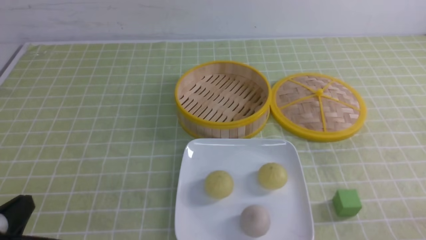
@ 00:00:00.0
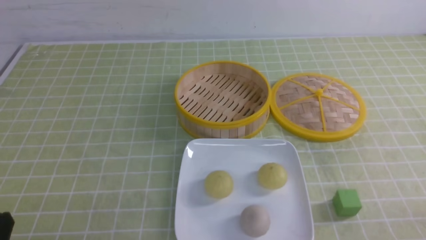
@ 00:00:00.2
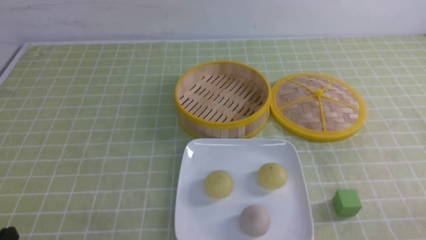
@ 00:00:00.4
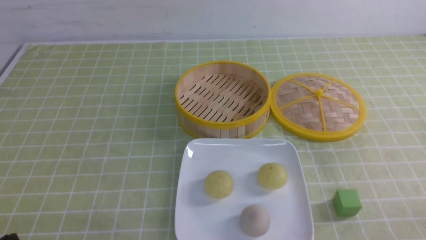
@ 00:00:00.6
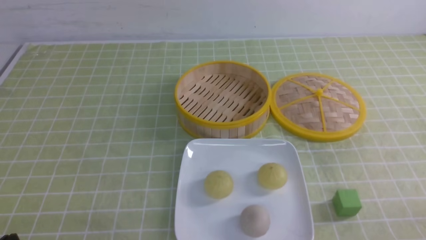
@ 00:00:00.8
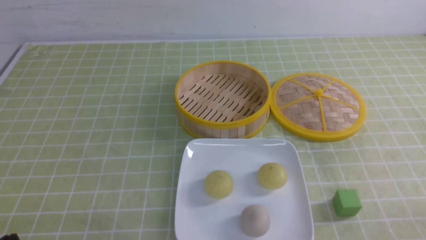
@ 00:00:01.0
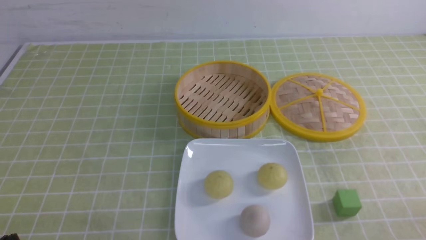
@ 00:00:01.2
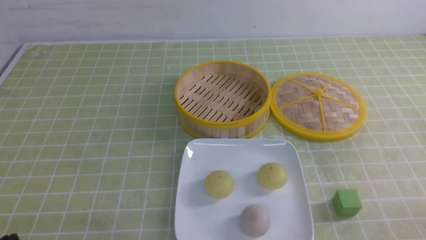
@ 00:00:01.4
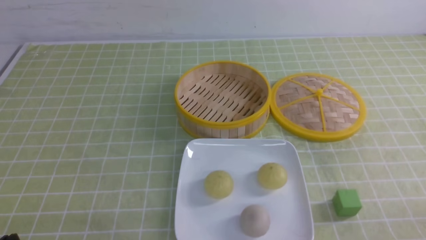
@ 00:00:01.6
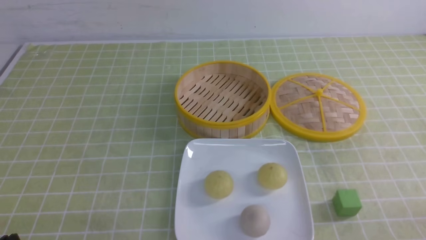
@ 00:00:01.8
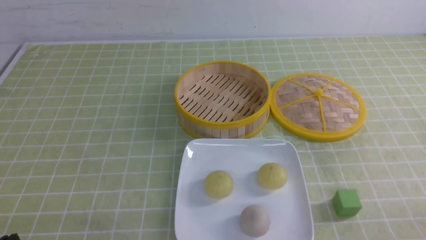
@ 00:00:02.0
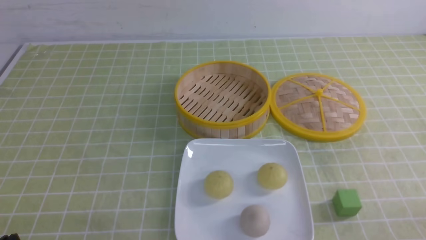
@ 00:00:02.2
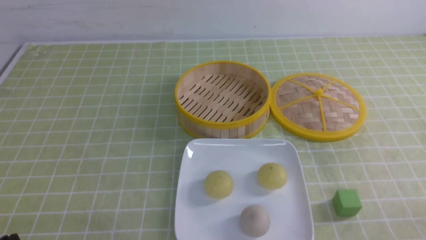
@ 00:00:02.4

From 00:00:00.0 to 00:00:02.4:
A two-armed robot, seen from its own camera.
From 00:00:00.0 to 00:00:01.2: The left gripper travels downward by about 5 cm.
From 00:00:01.2 to 00:00:02.4: Neither gripper changes place.

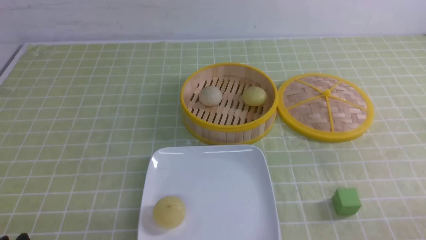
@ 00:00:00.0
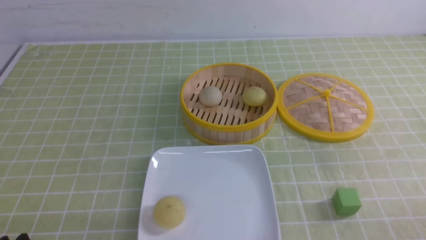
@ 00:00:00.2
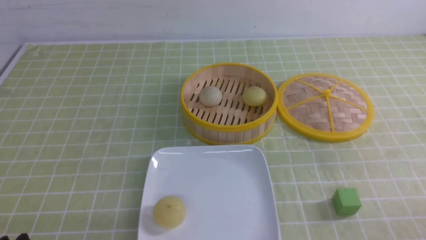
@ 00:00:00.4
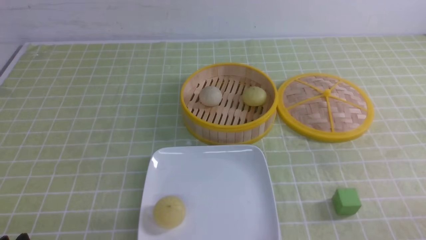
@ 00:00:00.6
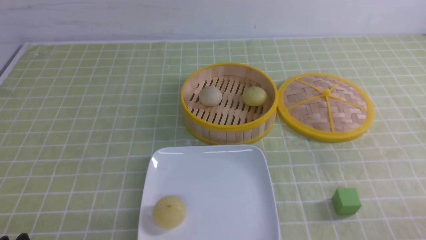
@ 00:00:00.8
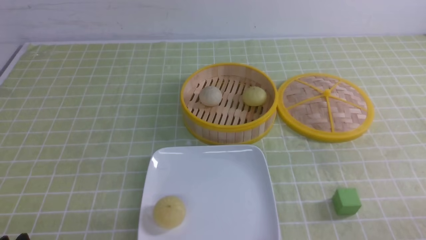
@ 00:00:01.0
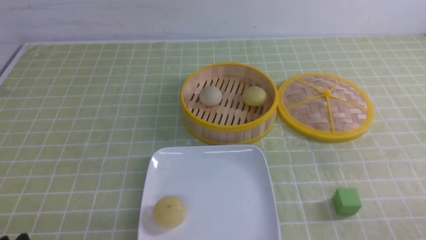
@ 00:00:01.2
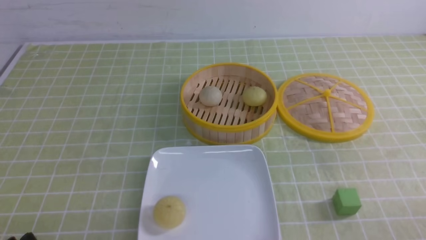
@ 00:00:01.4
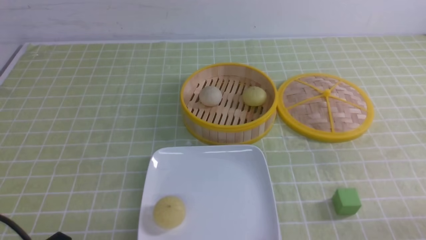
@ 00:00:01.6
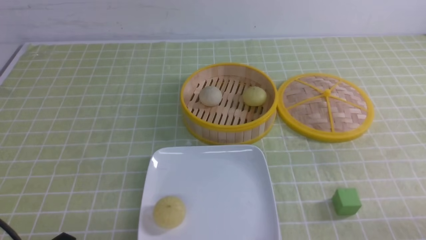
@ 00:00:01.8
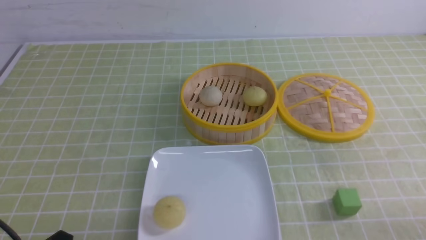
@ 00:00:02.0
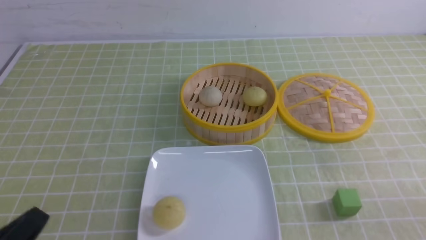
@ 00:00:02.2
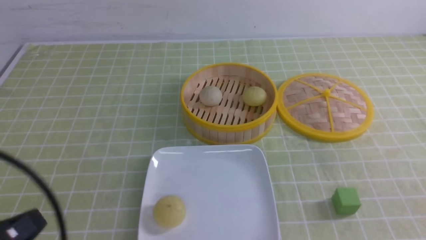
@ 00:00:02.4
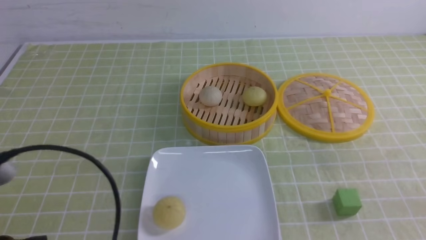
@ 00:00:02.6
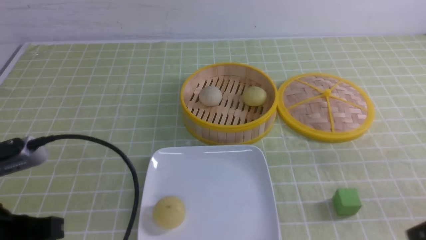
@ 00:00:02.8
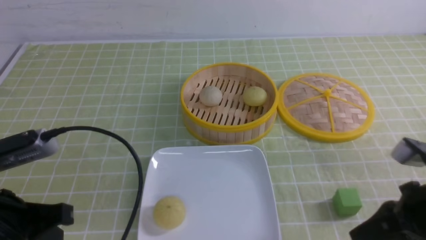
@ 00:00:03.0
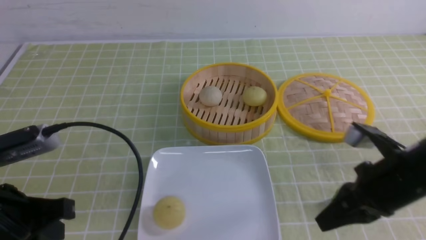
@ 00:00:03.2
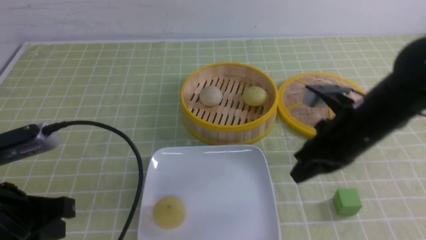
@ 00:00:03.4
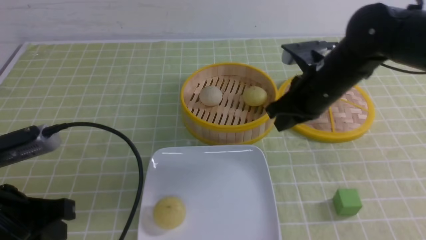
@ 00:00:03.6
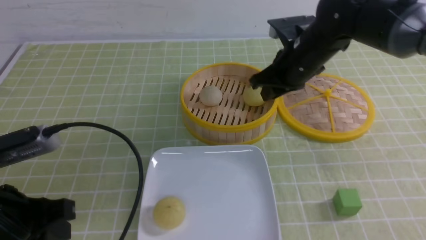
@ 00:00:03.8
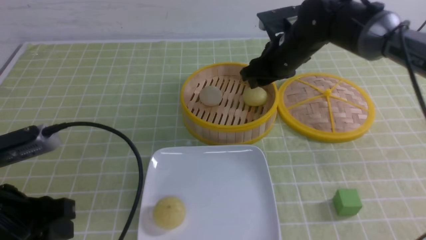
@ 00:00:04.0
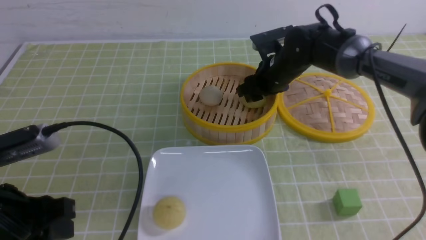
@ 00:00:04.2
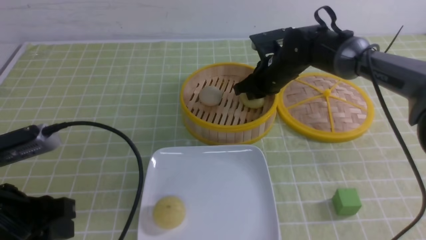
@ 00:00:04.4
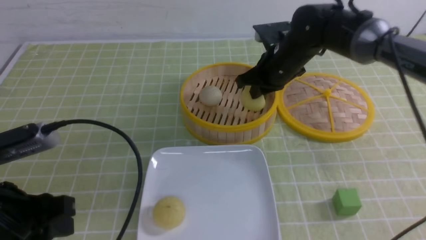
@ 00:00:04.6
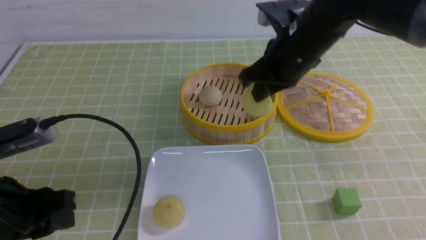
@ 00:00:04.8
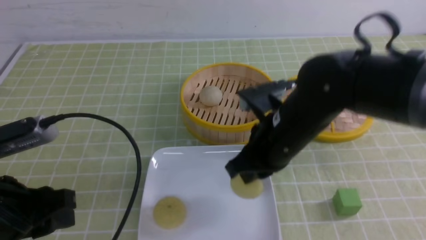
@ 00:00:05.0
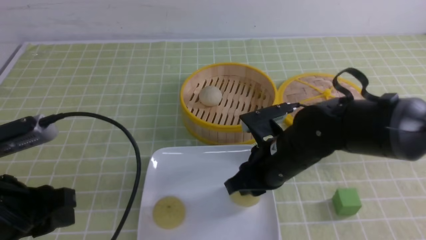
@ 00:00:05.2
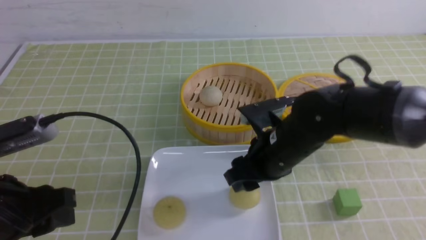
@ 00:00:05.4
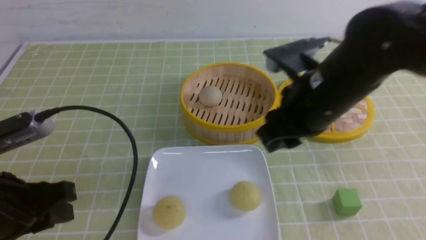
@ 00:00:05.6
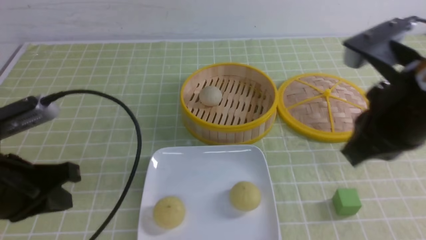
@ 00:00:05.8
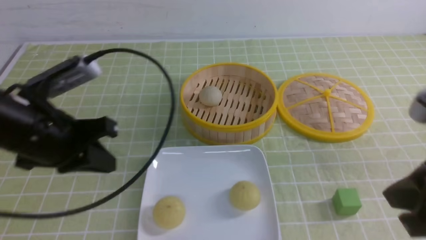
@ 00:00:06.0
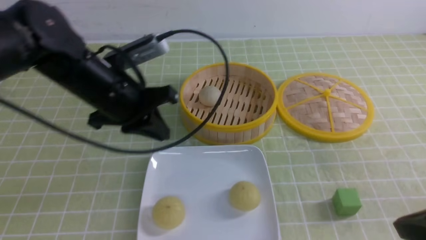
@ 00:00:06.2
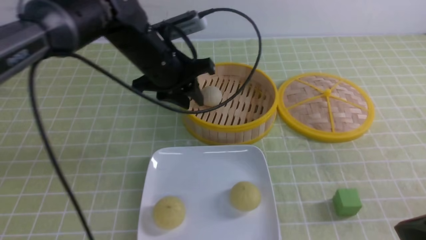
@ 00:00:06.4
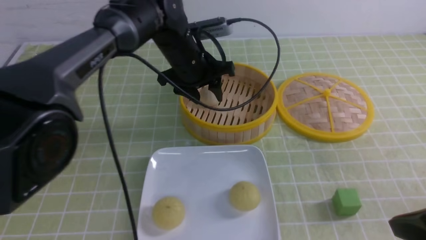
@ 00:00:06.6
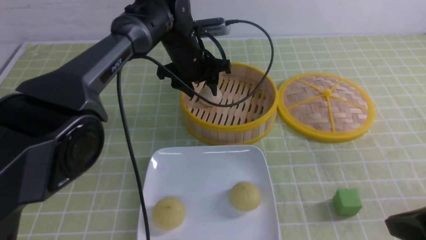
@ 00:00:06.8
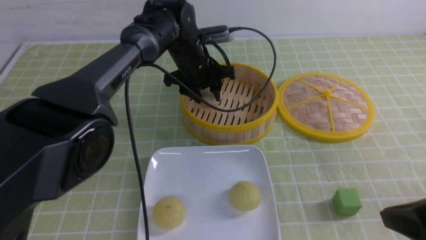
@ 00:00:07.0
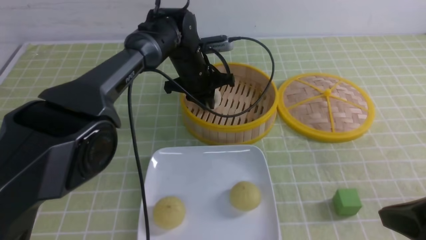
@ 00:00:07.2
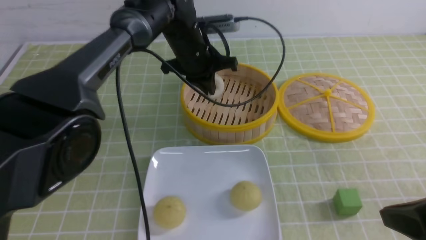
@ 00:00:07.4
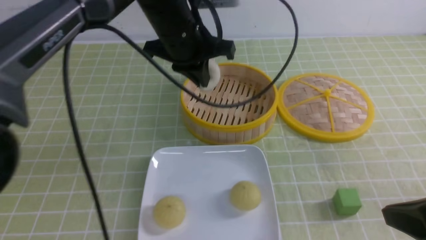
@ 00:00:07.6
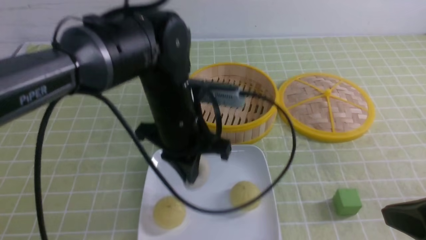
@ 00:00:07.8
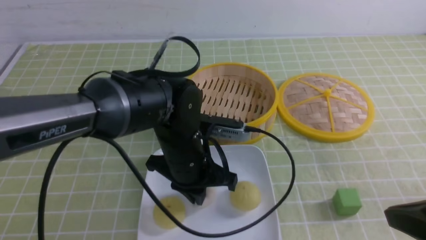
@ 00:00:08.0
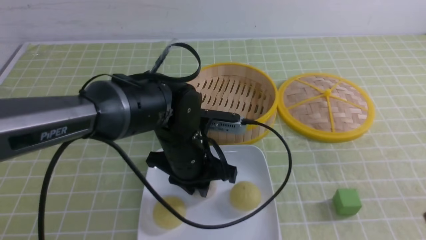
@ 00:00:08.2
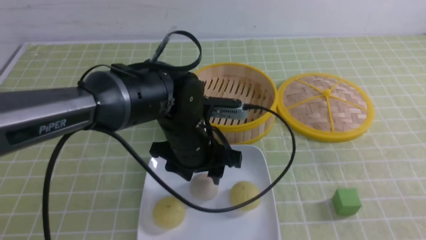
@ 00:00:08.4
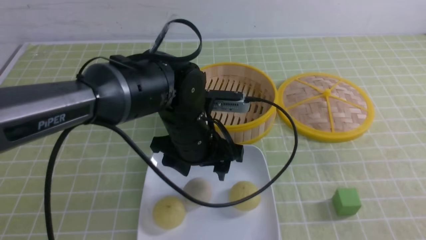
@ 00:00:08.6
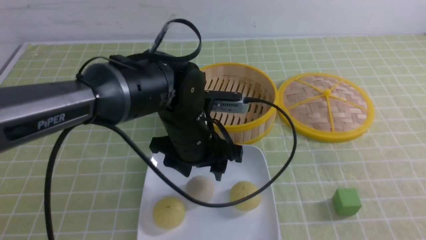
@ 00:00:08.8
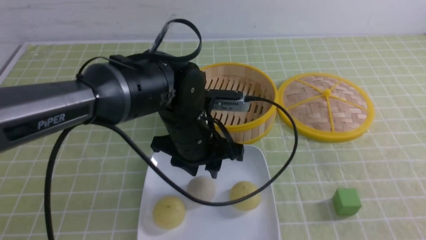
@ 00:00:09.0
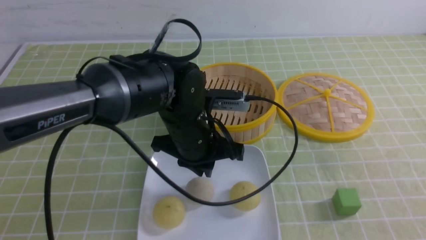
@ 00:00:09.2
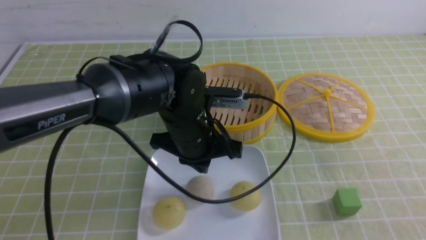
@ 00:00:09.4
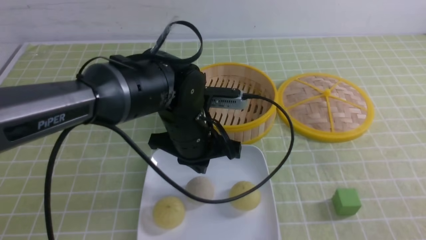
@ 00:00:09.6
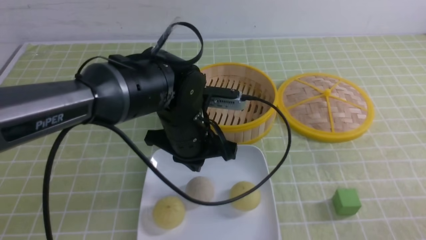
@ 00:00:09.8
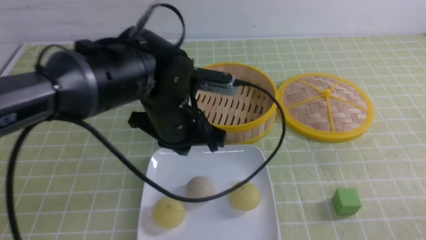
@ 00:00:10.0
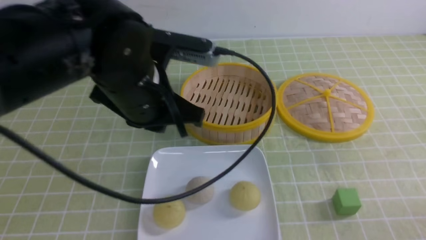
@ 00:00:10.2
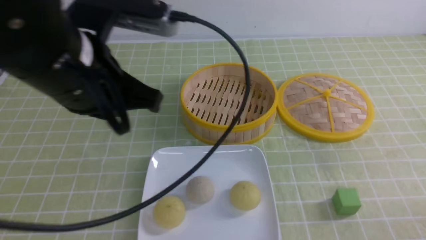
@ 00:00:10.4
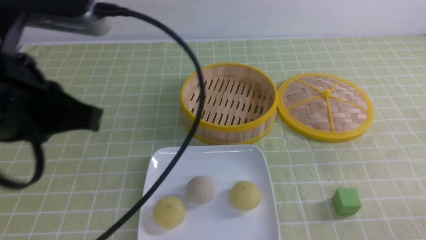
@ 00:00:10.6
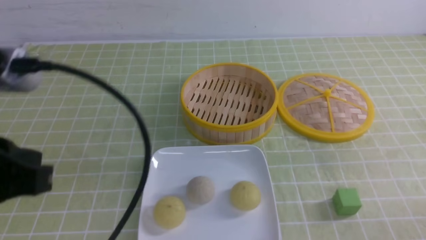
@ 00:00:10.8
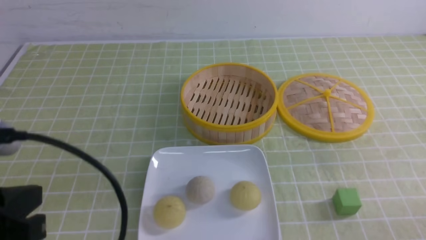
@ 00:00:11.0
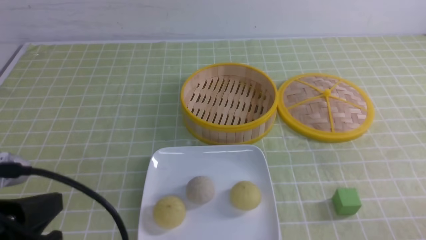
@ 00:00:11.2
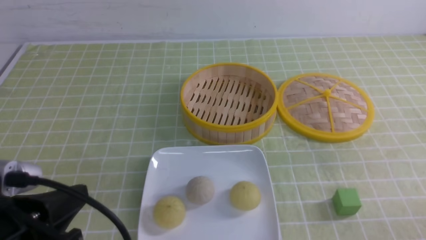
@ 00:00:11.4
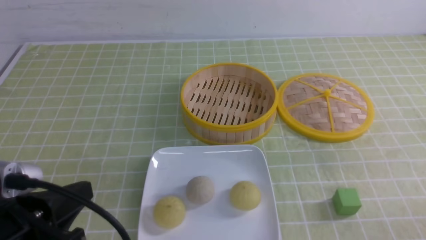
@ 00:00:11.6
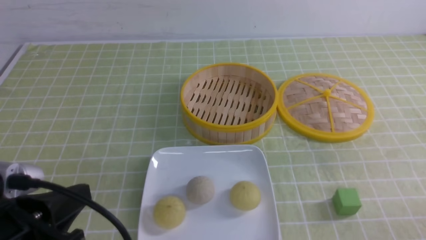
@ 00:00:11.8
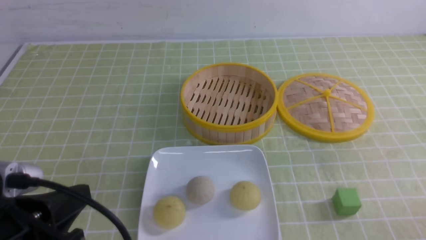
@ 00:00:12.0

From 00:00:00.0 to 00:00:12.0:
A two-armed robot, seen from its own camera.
Step, from 00:00:00.0 to 00:00:04.4: use the right arm to grab the steamed stuffed bun that is closest to it.
Step, from 00:00:04.6 to 00:00:05.2: use the right arm to put the steamed stuffed bun into the plate.
Step, from 00:00:05.4 to 00:00:07.0: use the left arm to grab the steamed stuffed bun that is closest to it.
Step, from 00:00:07.4 to 00:00:08.2: use the left arm to put the steamed stuffed bun into the plate.
From 00:00:01.6 to 00:00:03.0: The right gripper moves forward, to the left and upward, approximately 15 cm, and closes. Meanwhile the left gripper goes about 15 cm upward and forward, and closes its fingers.
From 00:00:03.0 to 00:00:04.4: The right gripper travels forward and to the left by some 30 cm, and opens its fingers; the left gripper opens.
From 00:00:04.4 to 00:00:06.0: The right gripper heads backward, covering roughly 30 cm, and closes; the left gripper goes approximately 10 cm forward, and closes up.
From 00:00:06.0 to 00:00:07.6: The right gripper ends up some 5 cm from where it was. The left gripper moves to the right and forward, approximately 20 cm, and opens, then closes again.
From 00:00:07.6 to 00:00:09.0: The right gripper shifts about 5 cm backward. The left gripper goes some 10 cm backward and downward, and opens.
From 00:00:09.0 to 00:00:10.4: The left gripper shifts roughly 20 cm upward, to the left and backward, and closes, while the right gripper goes roughly 10 cm downward.
From 00:00:10.4 to 00:00:12.0: The left gripper goes about 20 cm backward, downward and to the left.

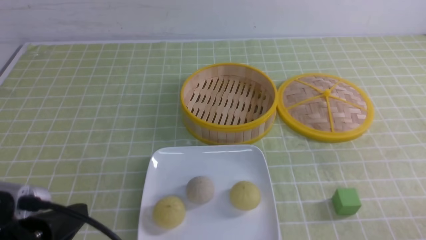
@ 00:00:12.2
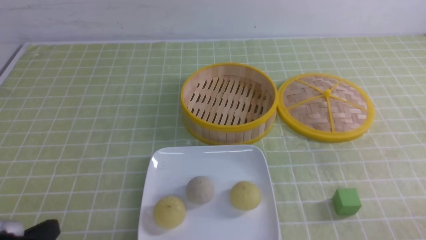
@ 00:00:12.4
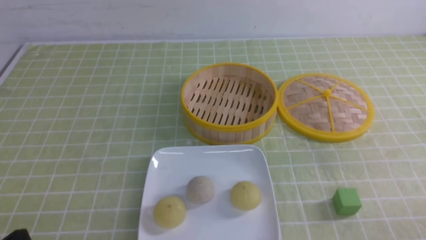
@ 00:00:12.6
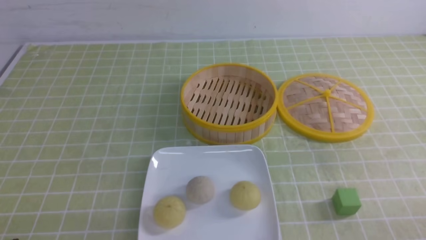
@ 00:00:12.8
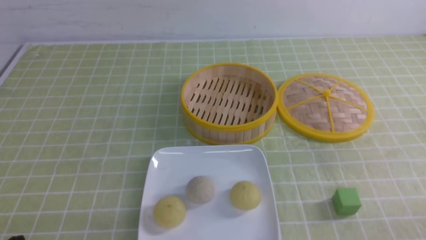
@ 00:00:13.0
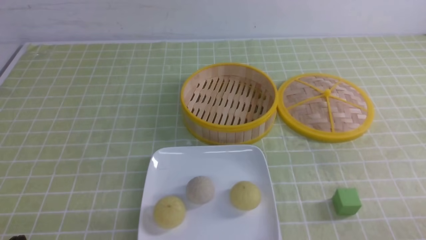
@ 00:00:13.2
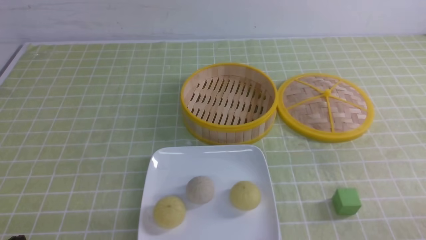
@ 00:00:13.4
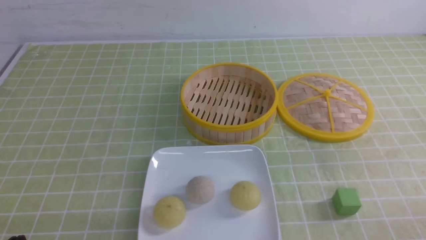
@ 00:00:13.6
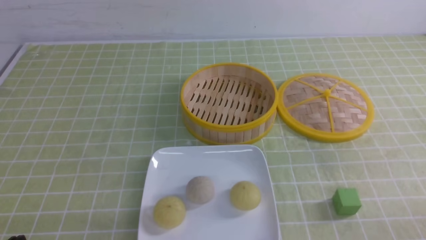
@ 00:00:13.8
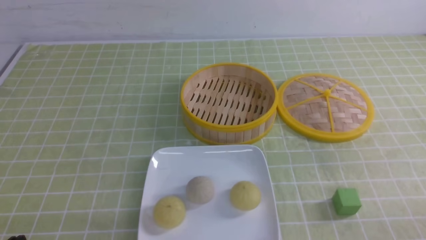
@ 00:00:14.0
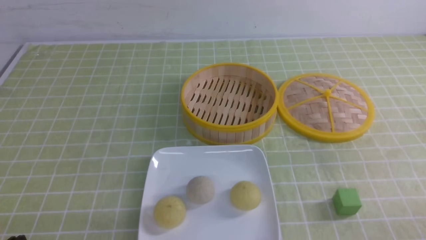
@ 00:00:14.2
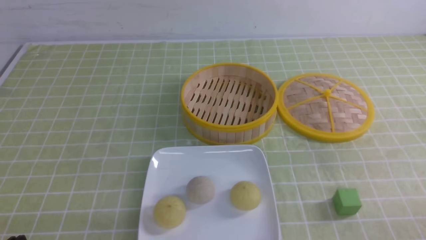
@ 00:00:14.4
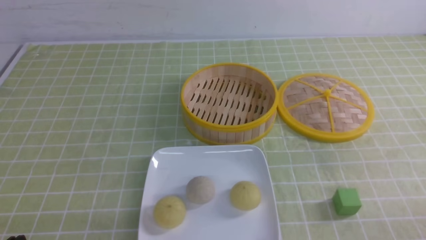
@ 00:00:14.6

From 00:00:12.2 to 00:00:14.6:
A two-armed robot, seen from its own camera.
From 00:00:12.2 to 00:00:13.4: The left gripper heads downward, covering about 5 cm.
From 00:00:13.4 to 00:00:14.6: Neither gripper changes place.
